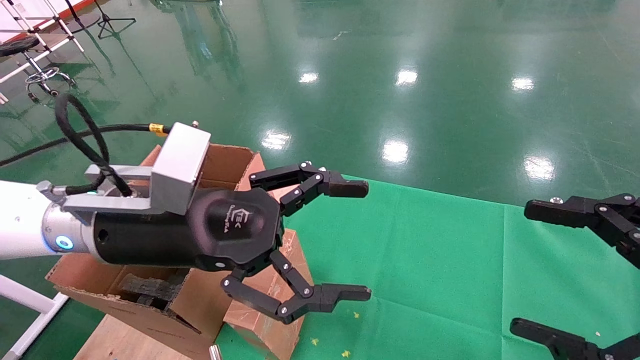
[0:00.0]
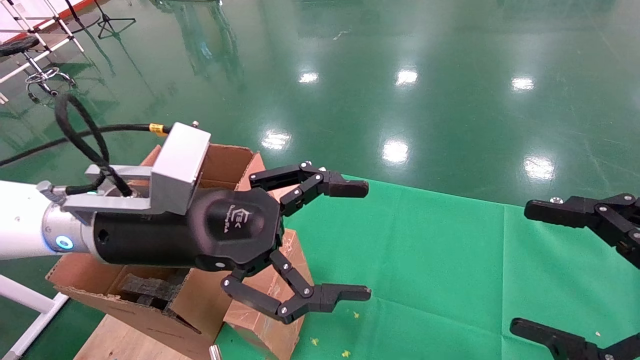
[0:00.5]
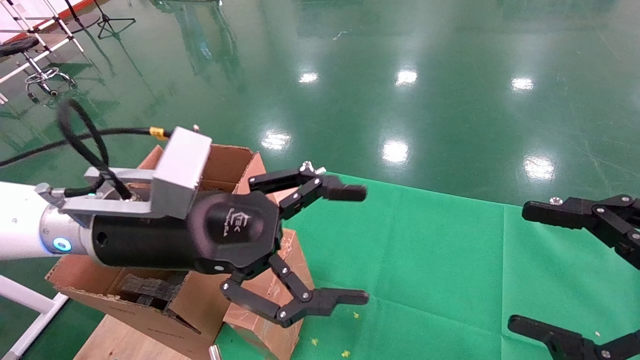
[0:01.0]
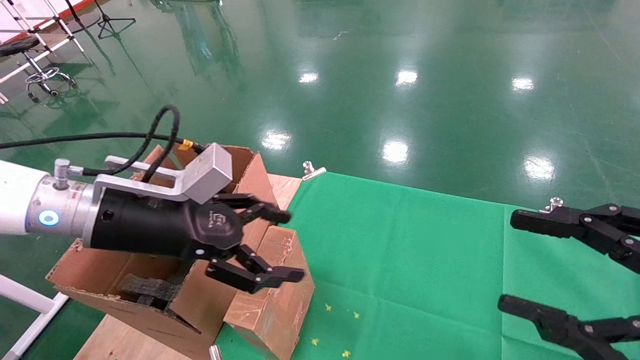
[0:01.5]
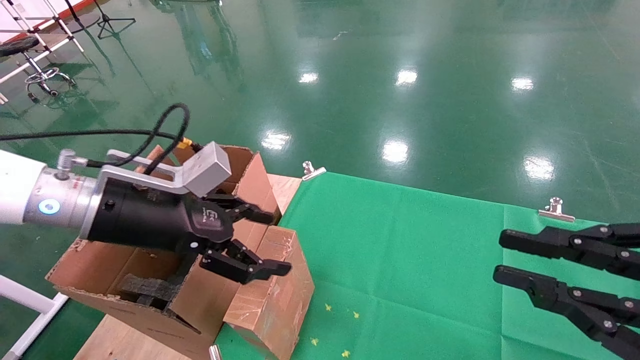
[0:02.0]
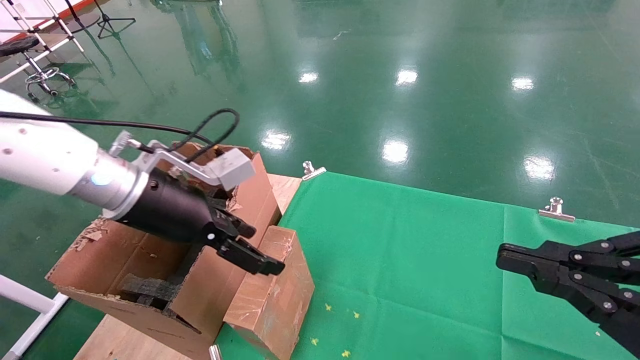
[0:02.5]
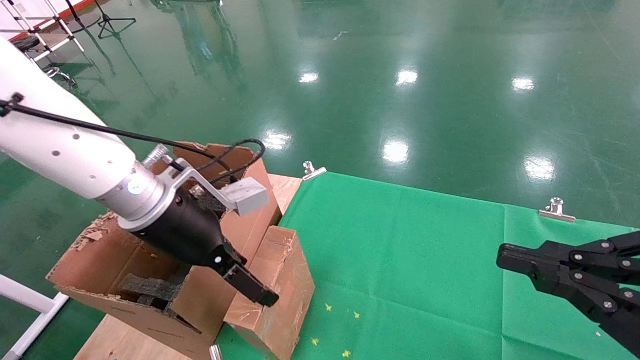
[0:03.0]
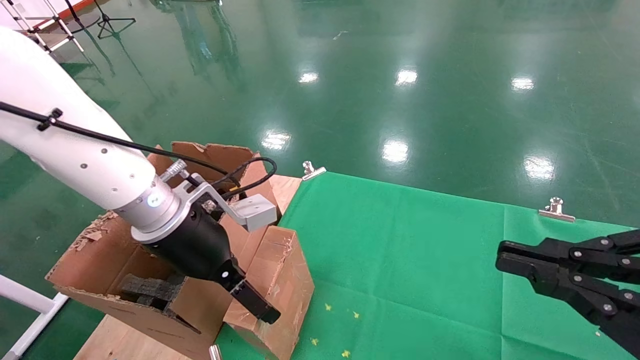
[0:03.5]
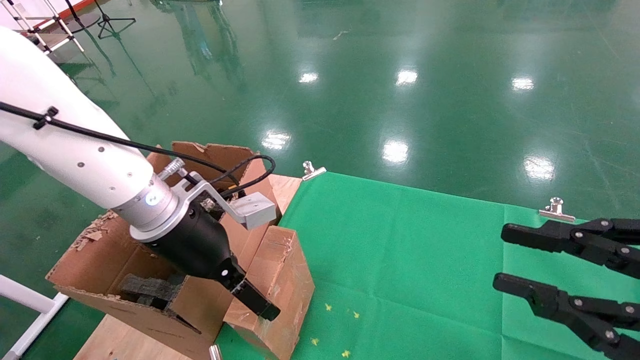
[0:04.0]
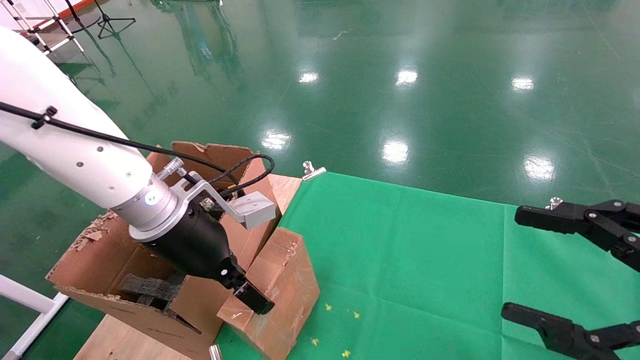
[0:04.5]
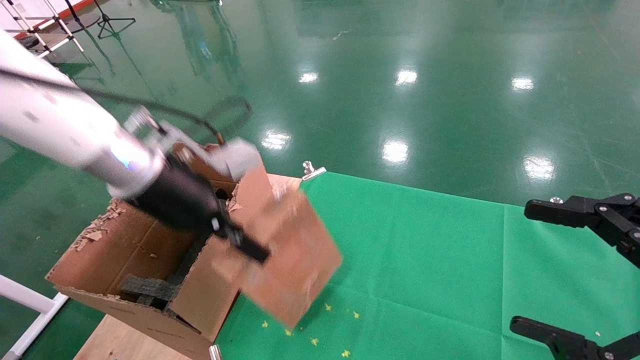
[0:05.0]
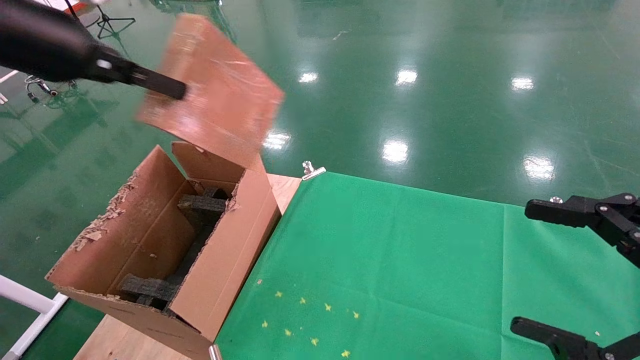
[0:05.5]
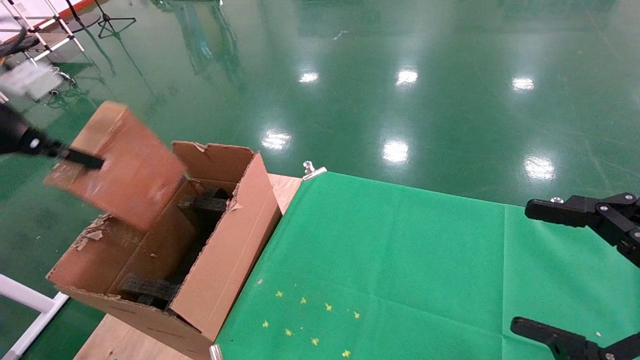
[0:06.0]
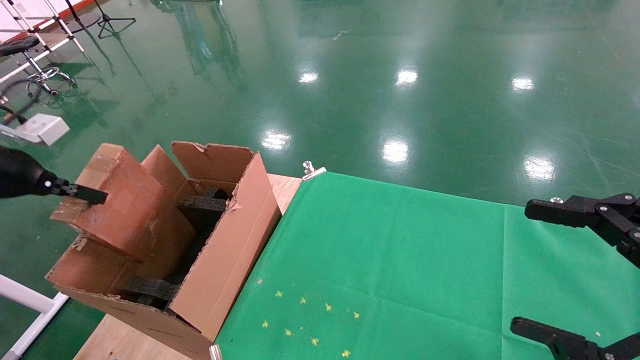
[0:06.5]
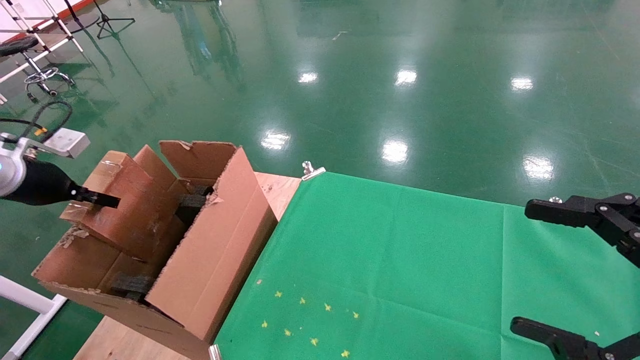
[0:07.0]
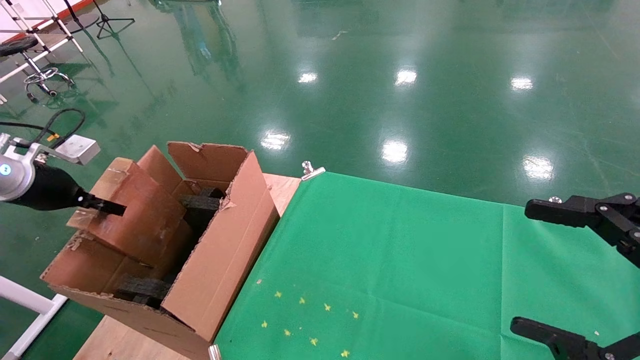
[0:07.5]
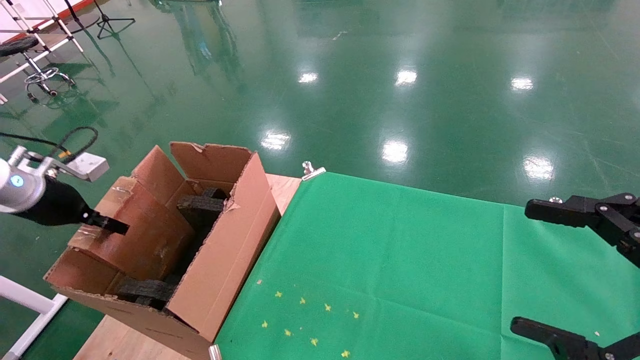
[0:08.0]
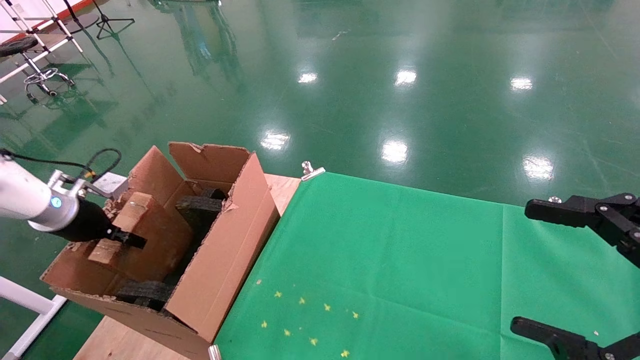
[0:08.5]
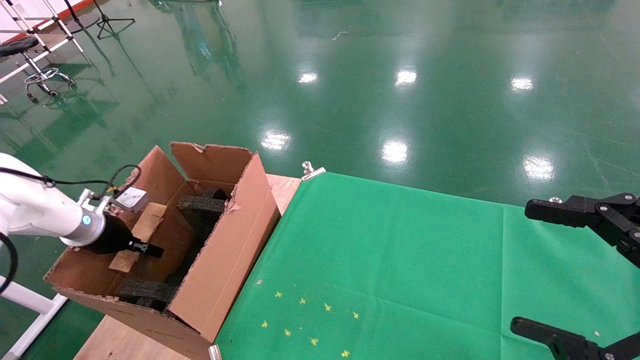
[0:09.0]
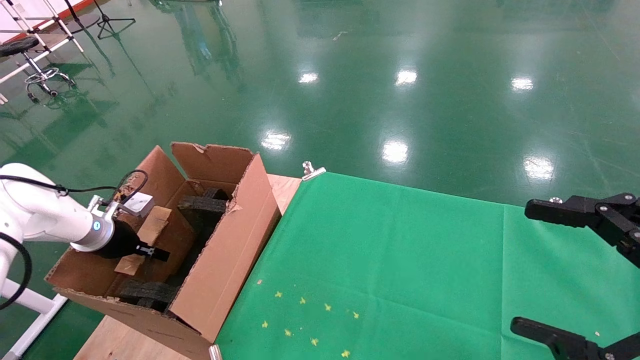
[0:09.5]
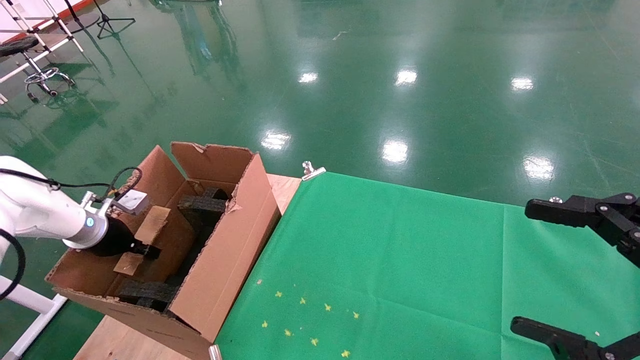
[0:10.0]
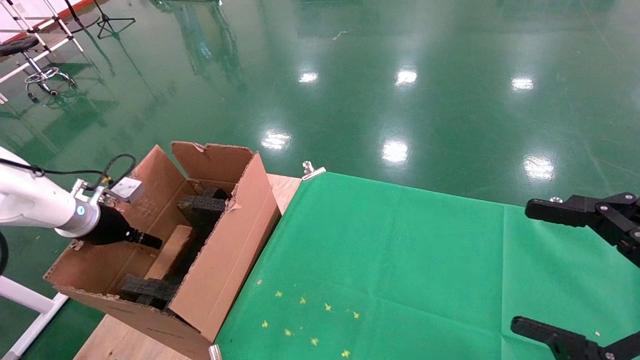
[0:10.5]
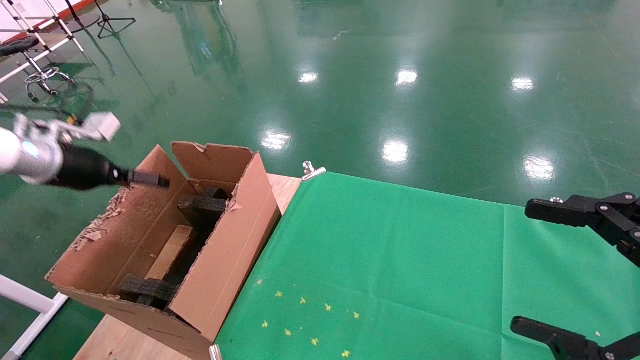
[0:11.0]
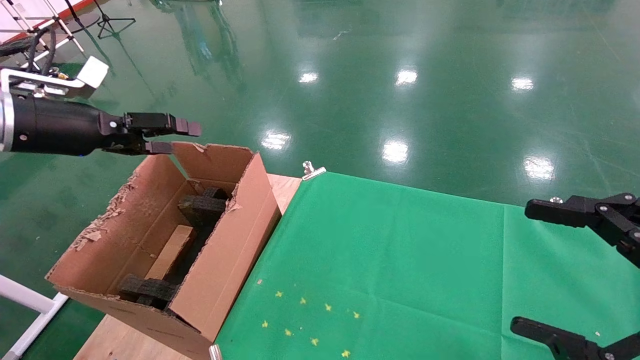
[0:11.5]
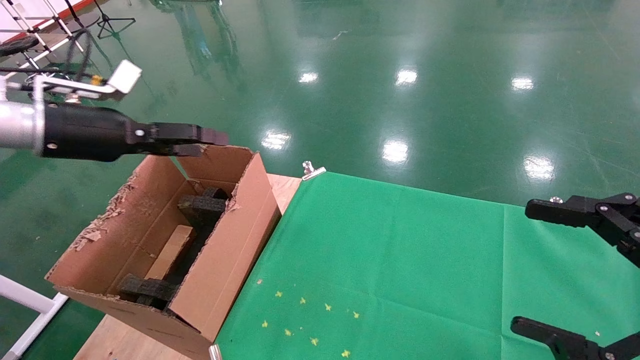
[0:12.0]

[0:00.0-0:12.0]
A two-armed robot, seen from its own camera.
Task of the whole recording: using a robotic arm to pick up a cardboard box and palace it the carton.
Step, 0:01.5 to 0:04.5: Pick up the mouse and the power cord paper box.
Step, 0:05.0 to 0:11.0: Place the mouse and the power cord paper box into the container.
0:00.0 to 0:02.0: The left gripper goes roughly 5 cm to the left, while the right gripper closes its fingers.
0:02.0 to 0:04.0: The left gripper travels to the right by some 5 cm.
0:04.0 to 0:06.0: The left gripper moves to the left and upward, some 30 cm, and closes, while the right gripper opens its fingers.
0:06.0 to 0:08.0: The left gripper heads downward and forward, covering some 15 cm.
0:08.0 to 0:10.0: The left gripper heads downward and forward, covering about 10 cm.
0:10.0 to 0:12.0: The left gripper shifts roughly 20 cm upward and to the right, and opens.

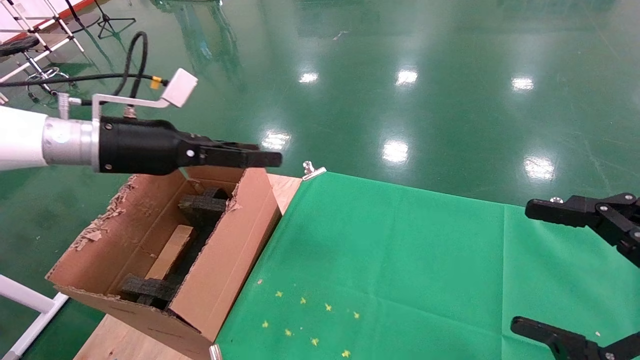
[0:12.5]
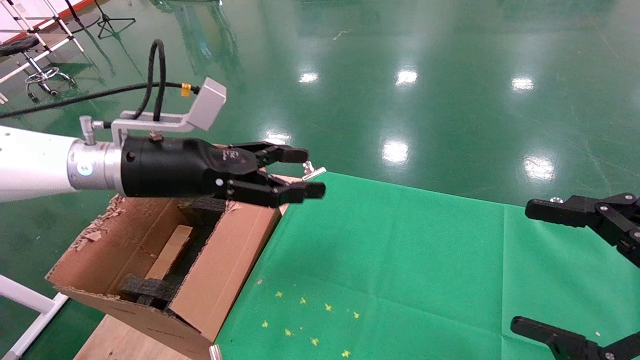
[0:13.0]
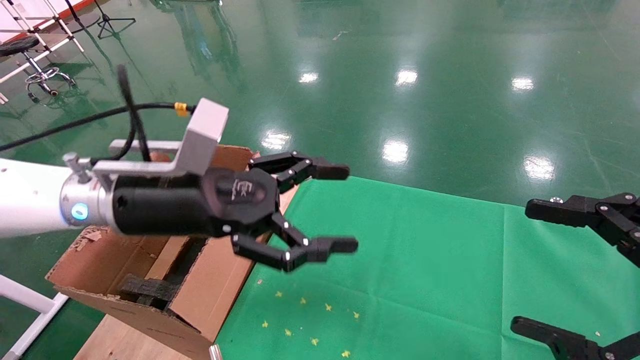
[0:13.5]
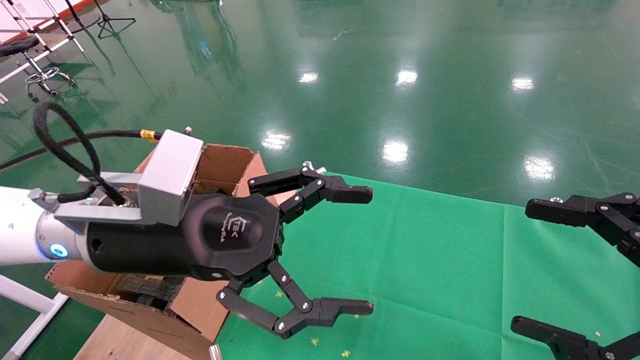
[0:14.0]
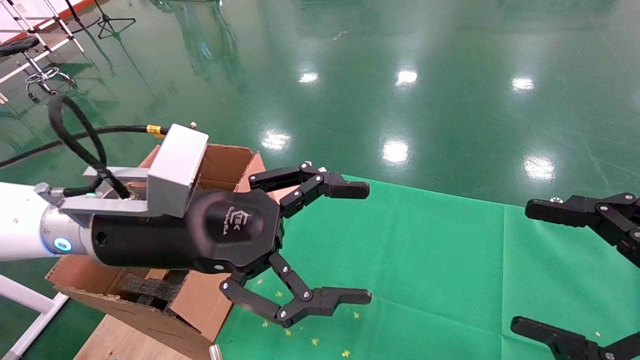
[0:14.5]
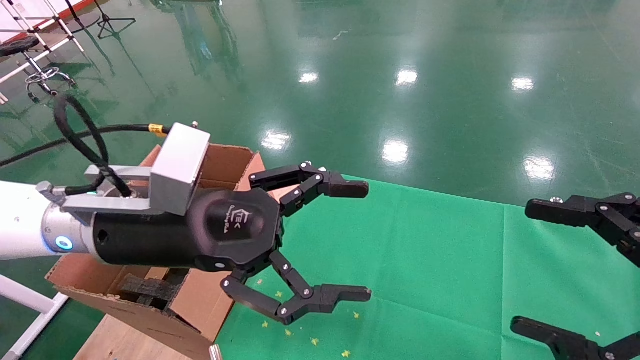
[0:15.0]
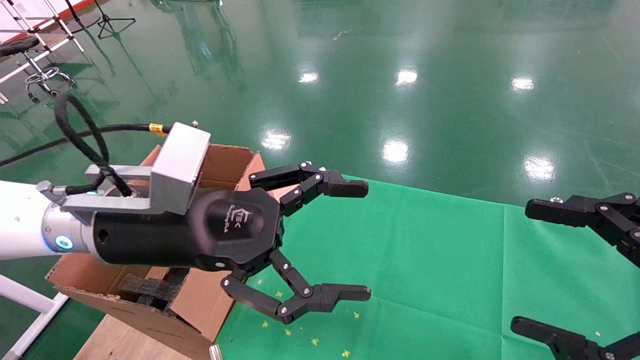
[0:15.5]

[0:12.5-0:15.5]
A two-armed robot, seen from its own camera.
Task of the whole recording: using a robotic arm to pick up a cardboard box and palace it the carton.
0:12.5 to 0:14.0: The left gripper is displaced to the right and backward by roughly 15 cm.
0:14.0 to 0:15.5: Both grippers stay put.

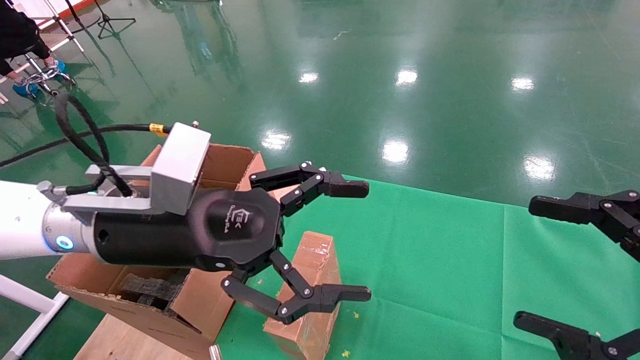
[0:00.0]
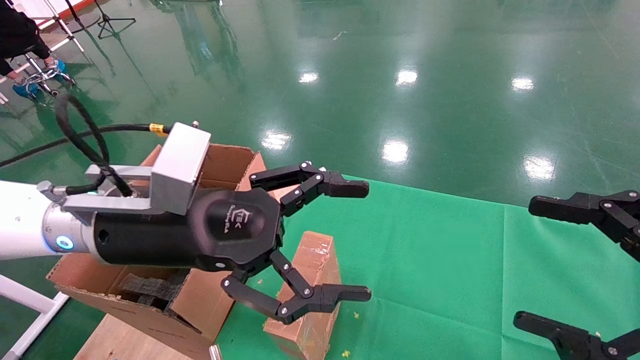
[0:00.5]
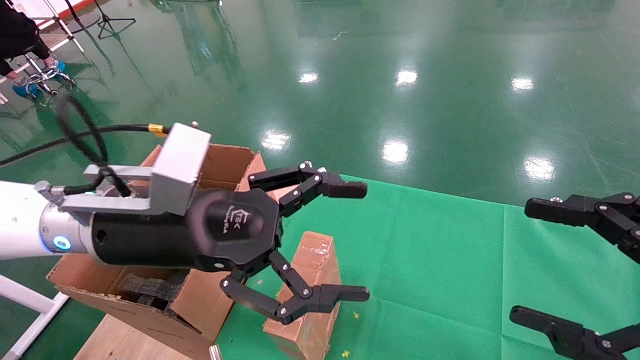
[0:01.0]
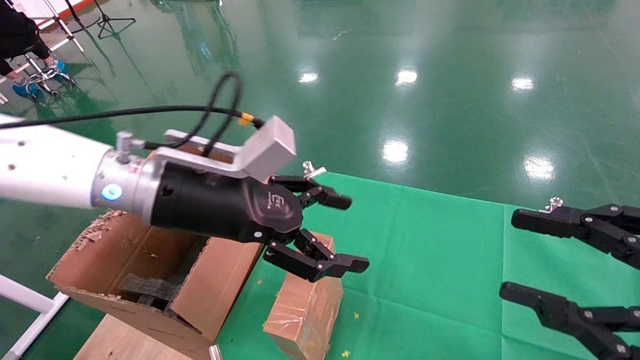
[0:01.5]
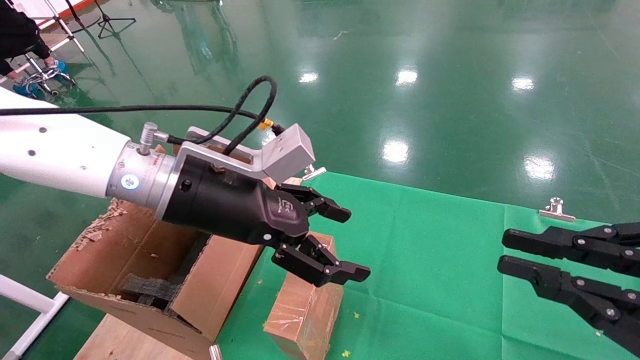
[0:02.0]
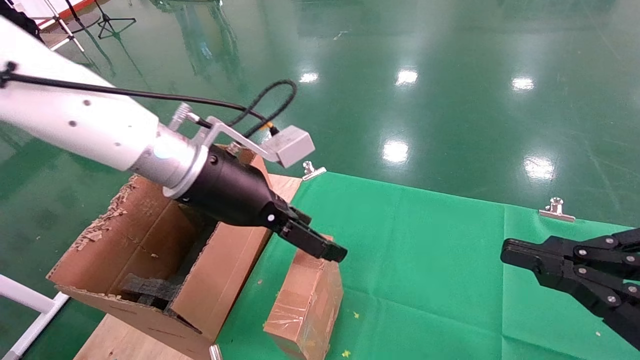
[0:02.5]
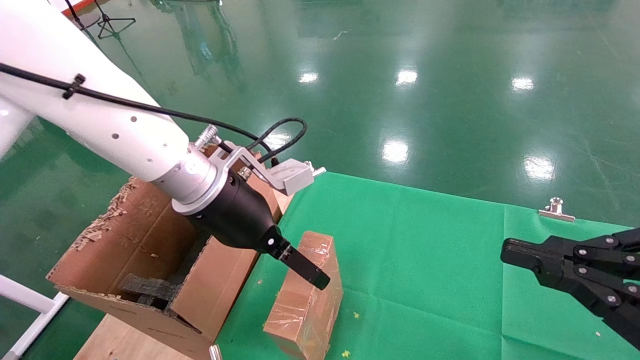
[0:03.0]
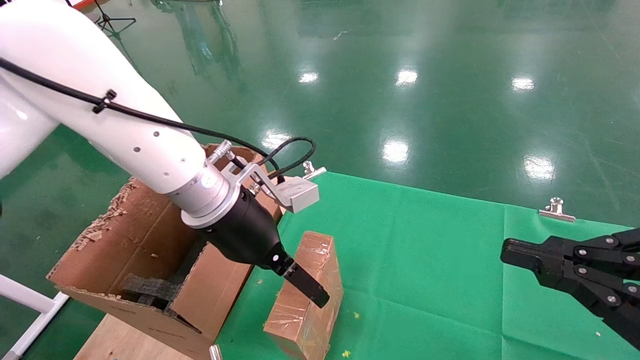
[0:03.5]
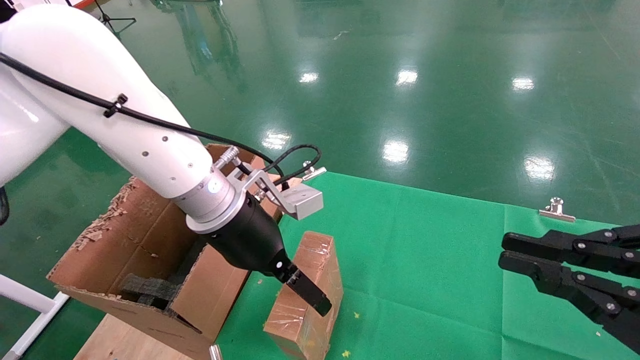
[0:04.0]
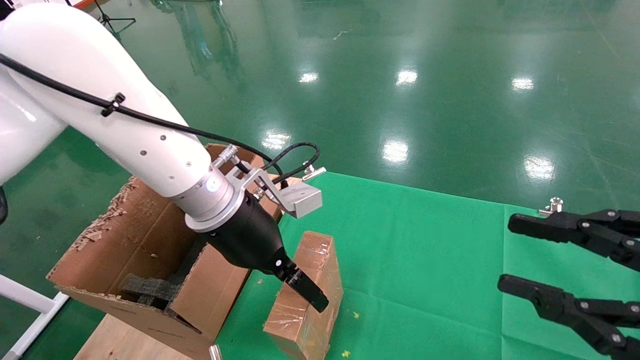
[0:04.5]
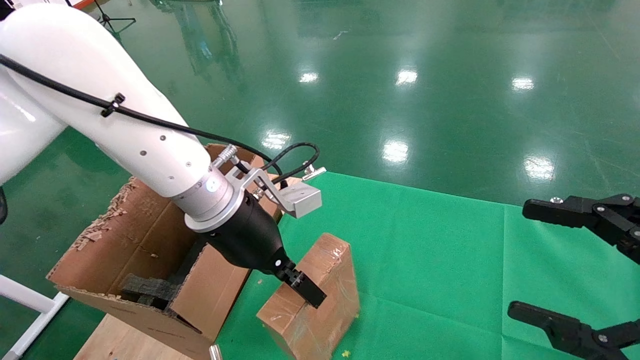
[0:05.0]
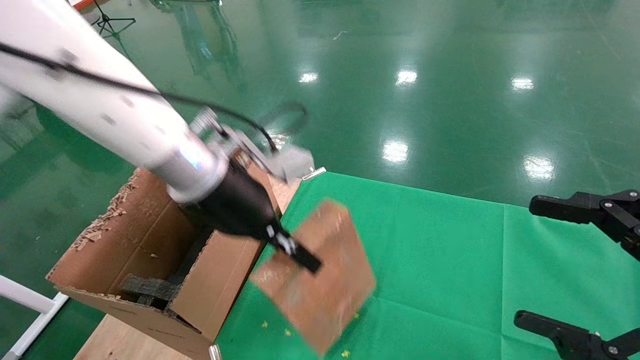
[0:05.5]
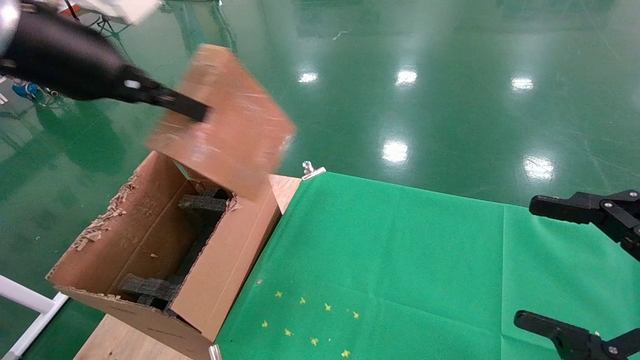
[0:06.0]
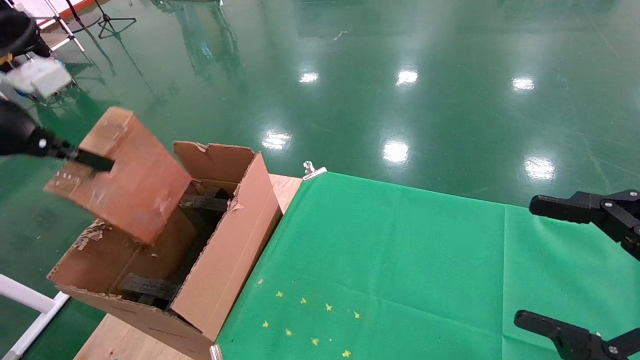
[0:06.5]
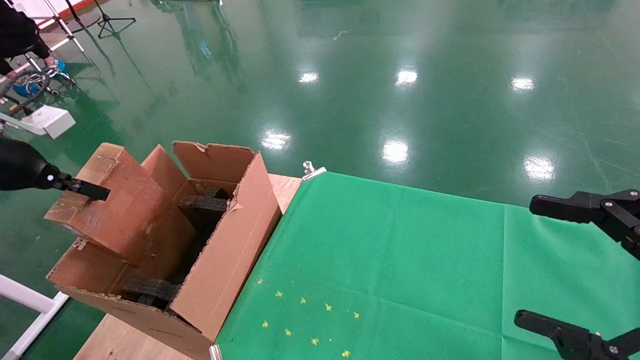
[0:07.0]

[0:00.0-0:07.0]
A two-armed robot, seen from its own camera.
Task of the whole recording: using a robotic arm to pick up a cardboard box and palace it the carton.
Step, 0:01.5 to 0:05.0: Pick up the mouse and the power cord paper box.
0:00.0 to 0:02.0: The left gripper is displaced forward by approximately 5 cm, while the right gripper closes.
0:03.5 to 0:05.0: The left gripper closes. Meanwhile the right gripper opens its fingers.
0:05.0 to 0:07.0: The left gripper heads to the left, covering about 35 cm, and closes its fingers.
